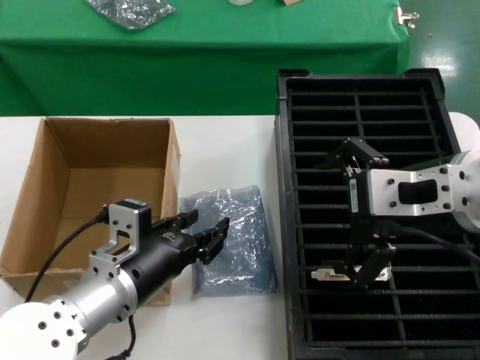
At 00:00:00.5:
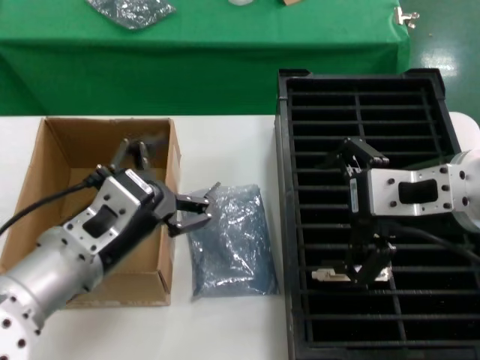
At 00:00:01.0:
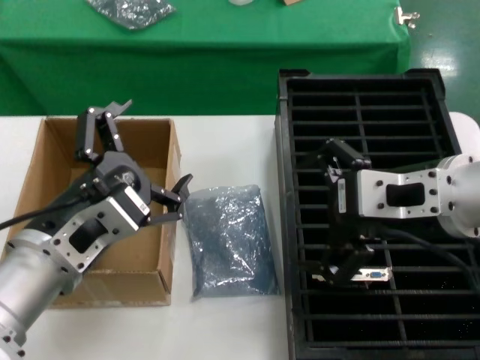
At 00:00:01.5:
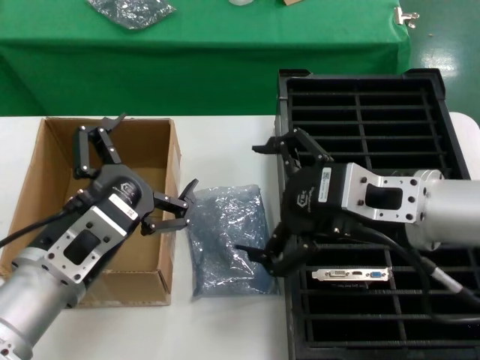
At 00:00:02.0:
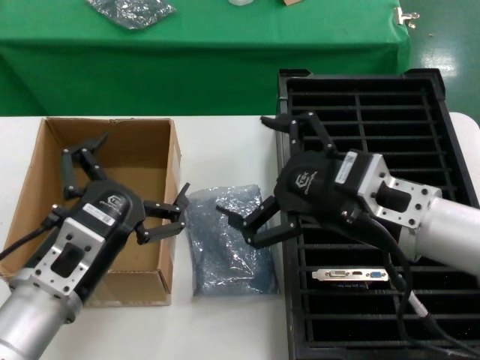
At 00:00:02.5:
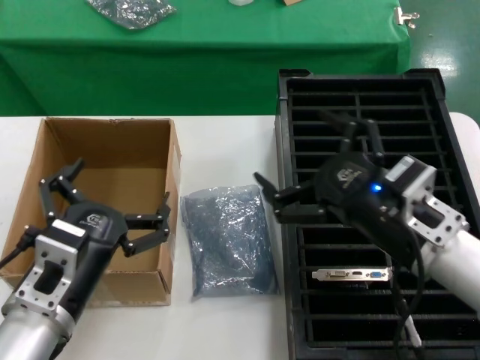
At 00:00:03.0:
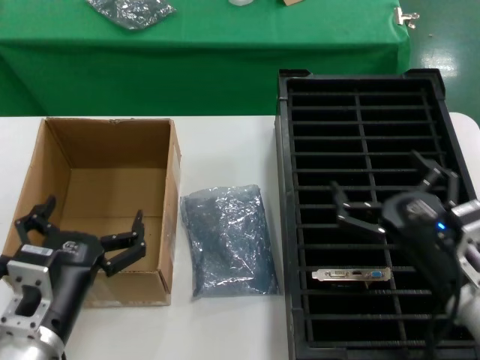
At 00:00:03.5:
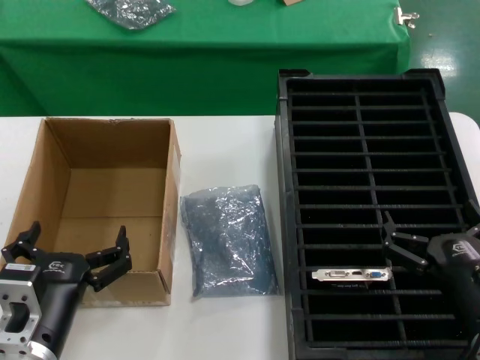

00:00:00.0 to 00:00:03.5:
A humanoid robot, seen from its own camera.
Task of the whole recording: take out graphics card from box remove packaging put into black container.
00:00:00.0 to 00:00:02.0: The left hand goes roughly 5 cm backward, and moves some 10 cm upward and comes back. The right hand heads downward, covering approximately 10 cm.
00:00:02.0 to 00:00:03.5: The right hand heads downward and to the right, covering about 20 cm. The left hand moves downward, about 10 cm.

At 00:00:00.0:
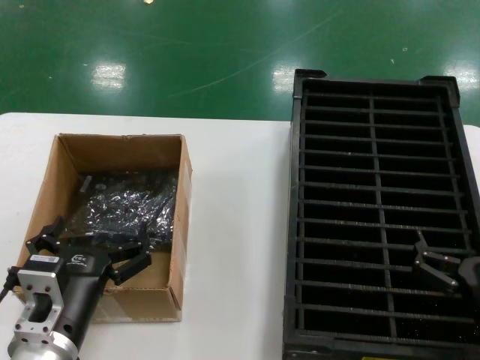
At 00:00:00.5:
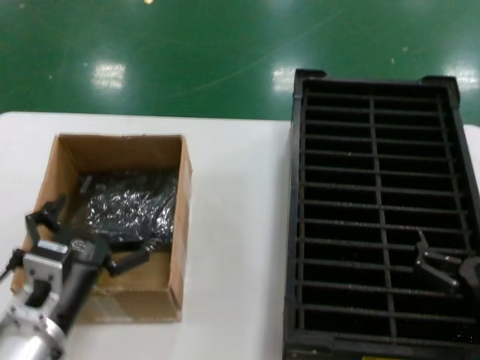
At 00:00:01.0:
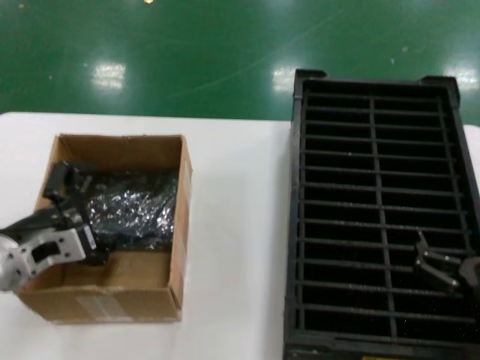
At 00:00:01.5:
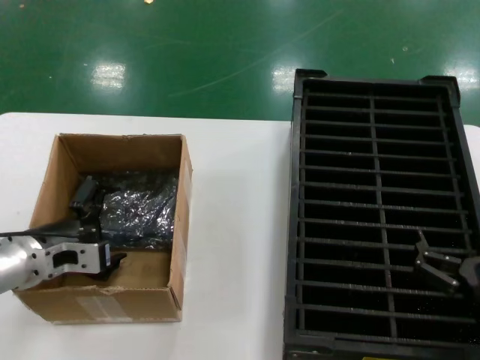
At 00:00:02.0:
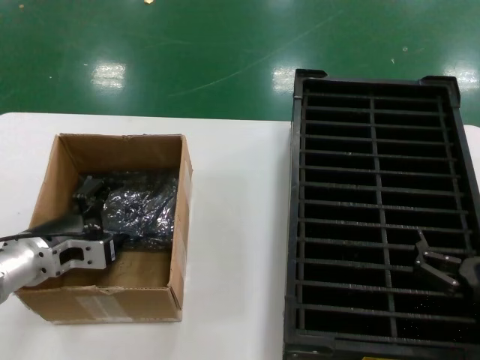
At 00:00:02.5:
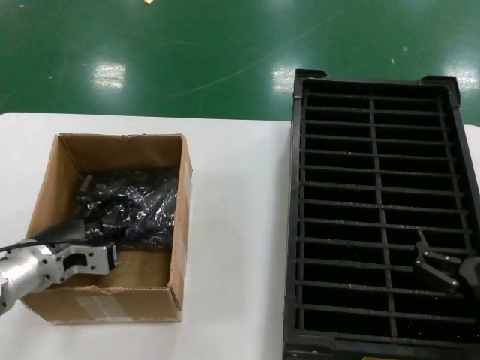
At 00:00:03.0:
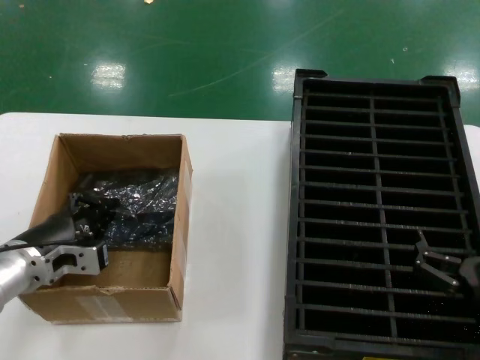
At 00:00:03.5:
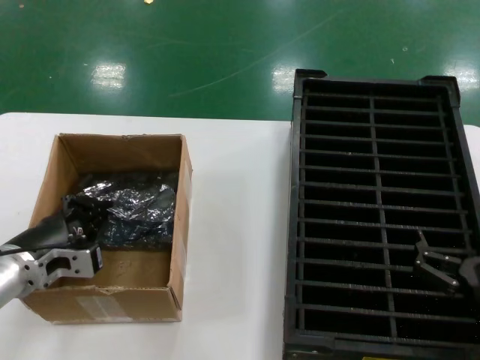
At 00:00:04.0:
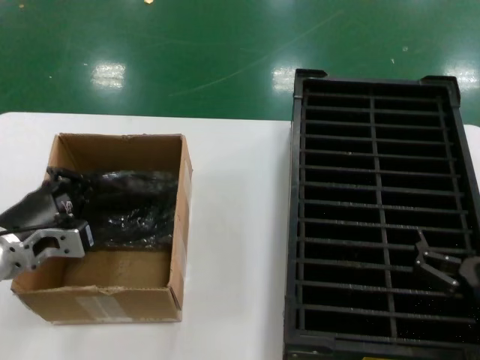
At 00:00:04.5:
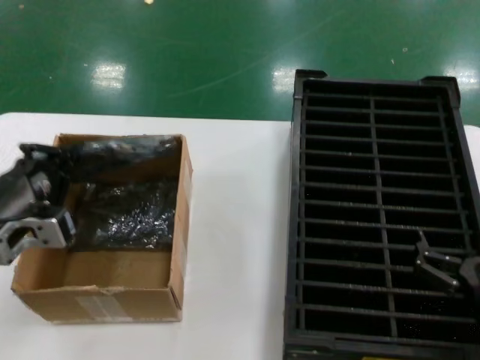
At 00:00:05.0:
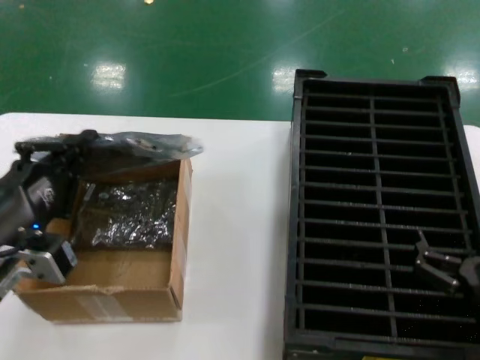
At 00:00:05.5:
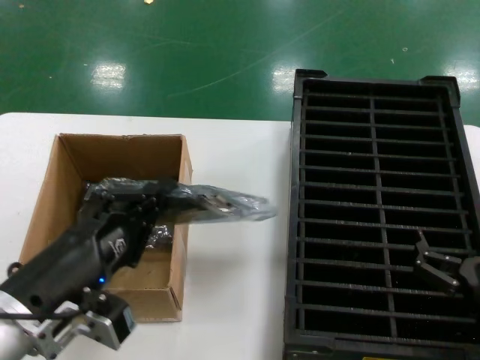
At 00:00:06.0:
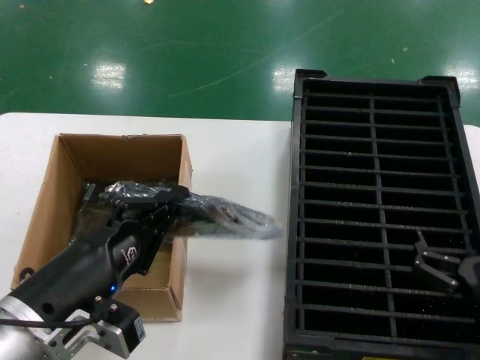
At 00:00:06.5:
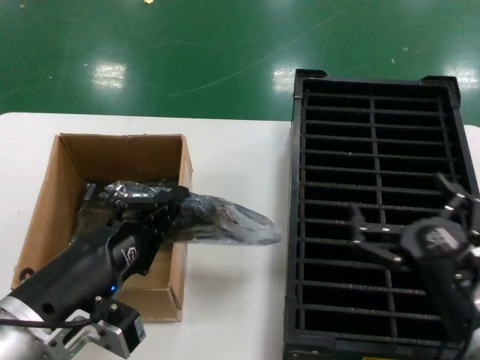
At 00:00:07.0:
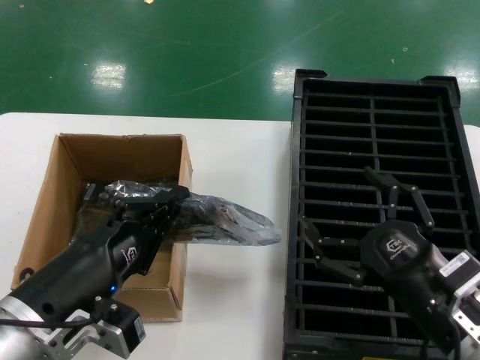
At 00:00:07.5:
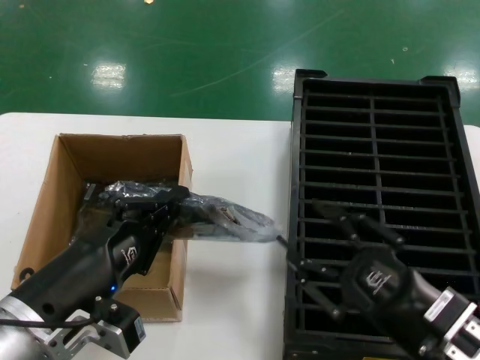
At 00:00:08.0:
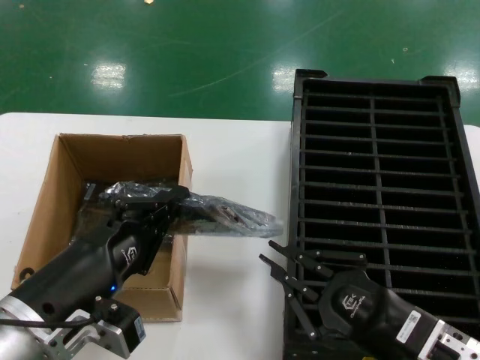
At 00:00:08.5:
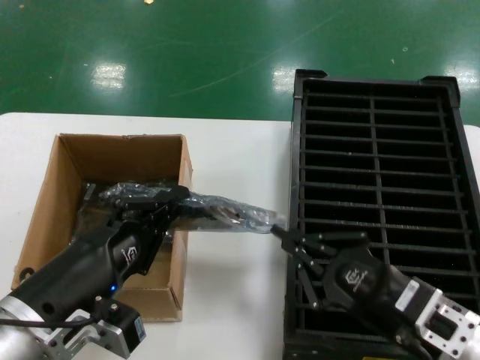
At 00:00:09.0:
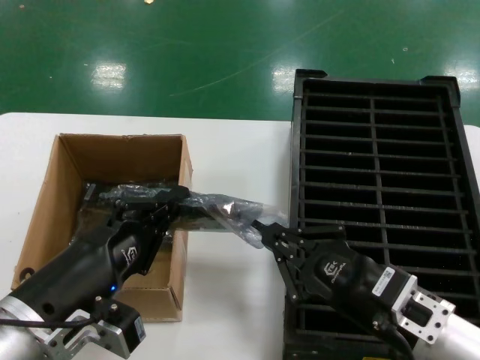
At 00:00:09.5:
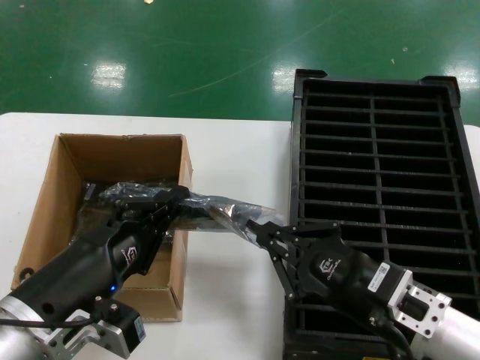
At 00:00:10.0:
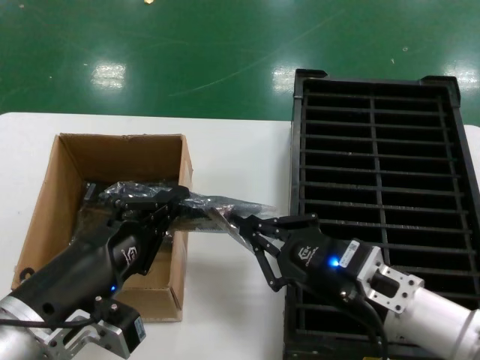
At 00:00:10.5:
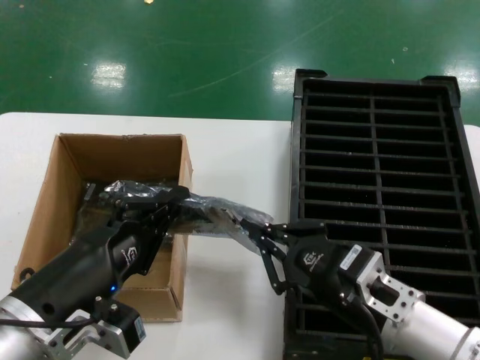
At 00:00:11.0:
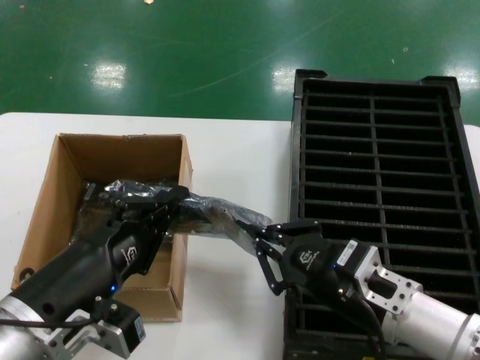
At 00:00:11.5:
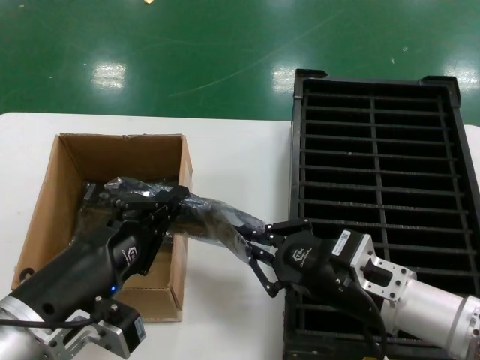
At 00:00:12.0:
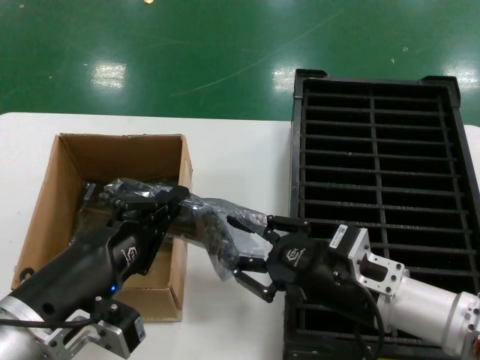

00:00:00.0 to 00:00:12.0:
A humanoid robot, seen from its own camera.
Task of the whole recording: take out graphics card from box remove packaging put into black container.
Step, 00:00:00.0 to 00:00:02.5: Grasp the bag.
Step, 00:00:03.0 to 00:00:06.0: Lift the bag.
00:00:00.0 to 00:00:02.0: The left hand moves forward and to the left, roughly 15 cm.
00:00:02.0 to 00:00:04.0: The hands make only small movements.
00:00:04.0 to 00:00:06.0: The left hand shifts roughly 15 cm backward and to the right.
00:00:06.0 to 00:00:08.0: The right hand shifts approximately 5 cm to the left.
00:00:08.0 to 00:00:10.0: The right hand is displaced forward by roughly 5 cm.
00:00:10.0 to 00:00:12.0: The hands stay close to where they were, moving slightly.

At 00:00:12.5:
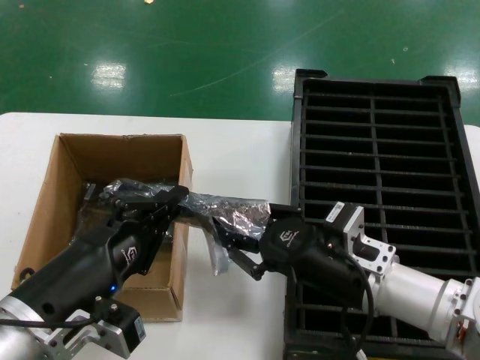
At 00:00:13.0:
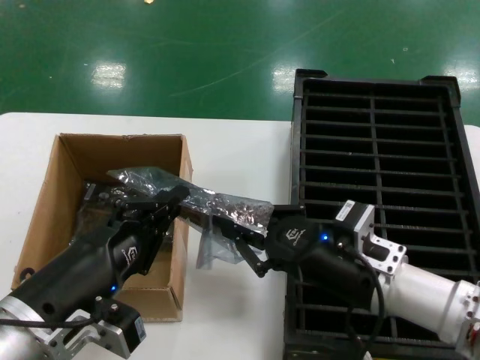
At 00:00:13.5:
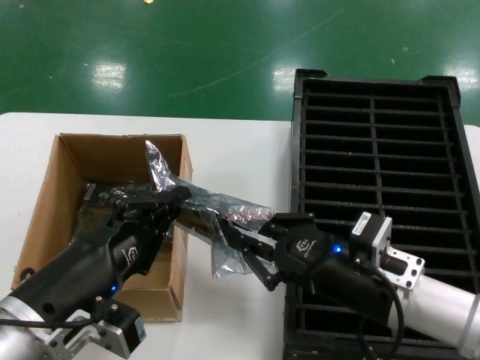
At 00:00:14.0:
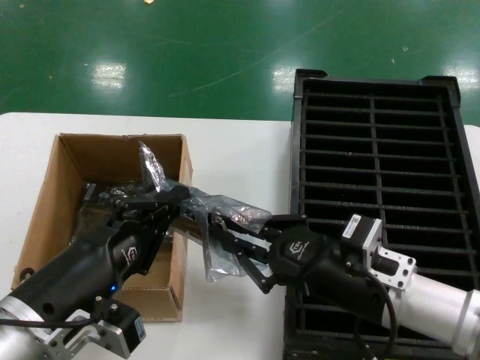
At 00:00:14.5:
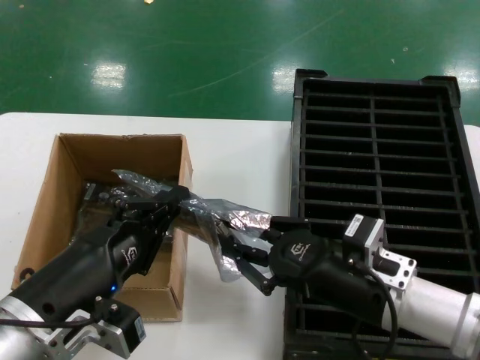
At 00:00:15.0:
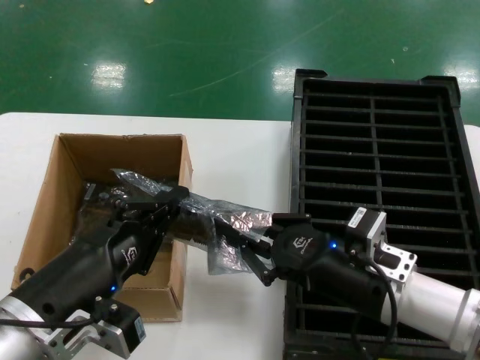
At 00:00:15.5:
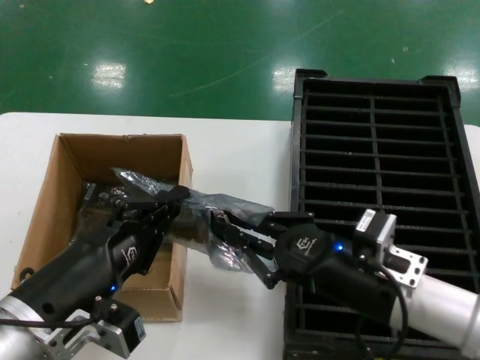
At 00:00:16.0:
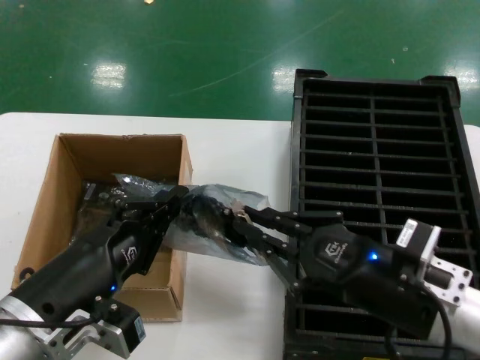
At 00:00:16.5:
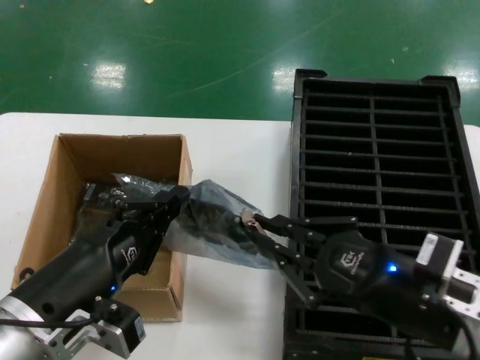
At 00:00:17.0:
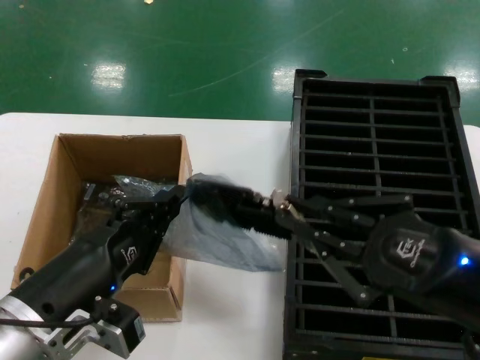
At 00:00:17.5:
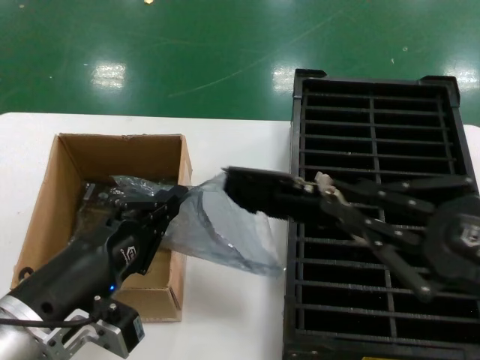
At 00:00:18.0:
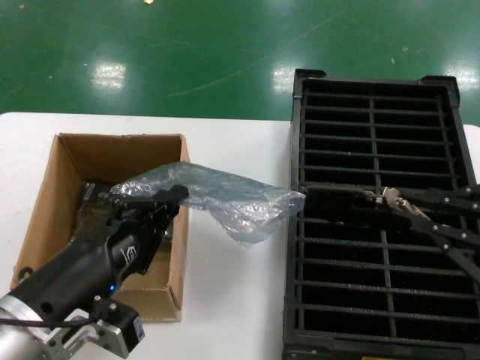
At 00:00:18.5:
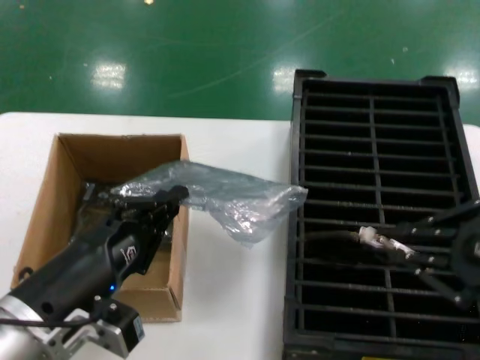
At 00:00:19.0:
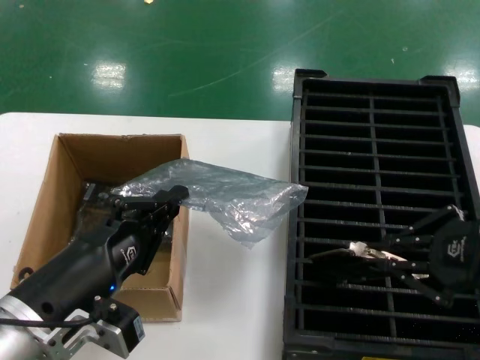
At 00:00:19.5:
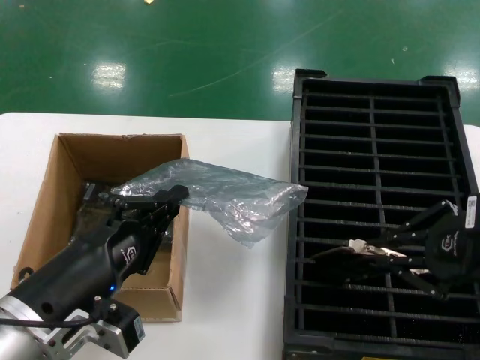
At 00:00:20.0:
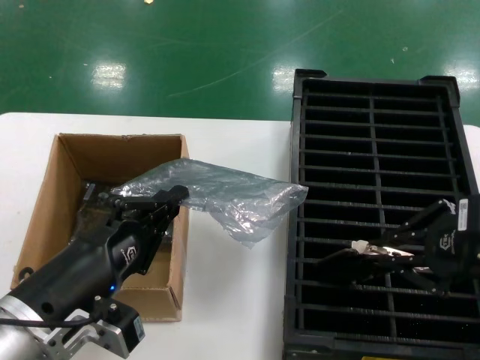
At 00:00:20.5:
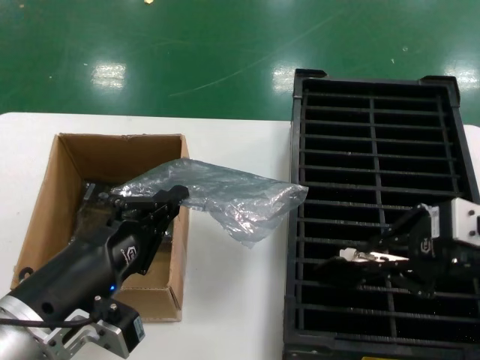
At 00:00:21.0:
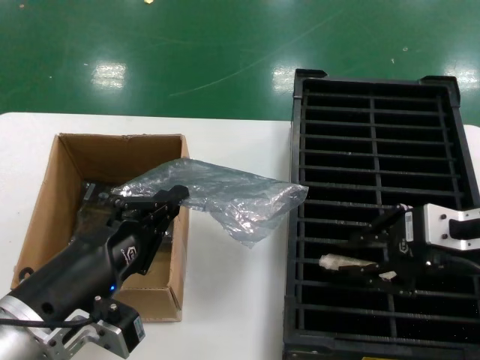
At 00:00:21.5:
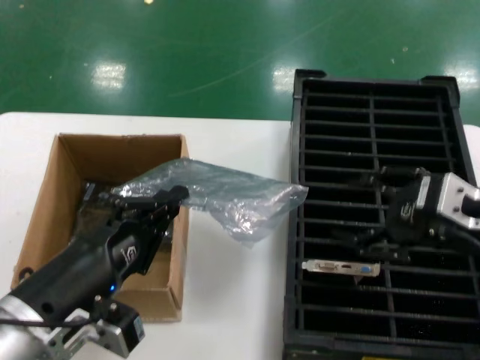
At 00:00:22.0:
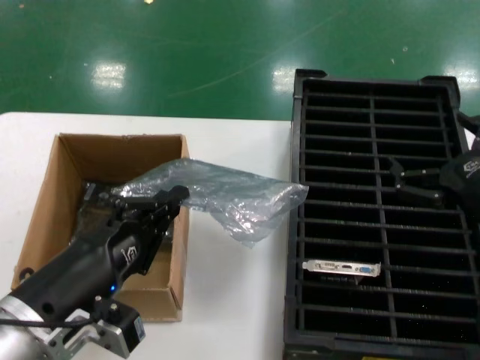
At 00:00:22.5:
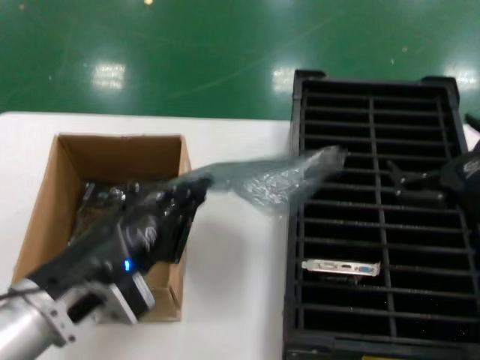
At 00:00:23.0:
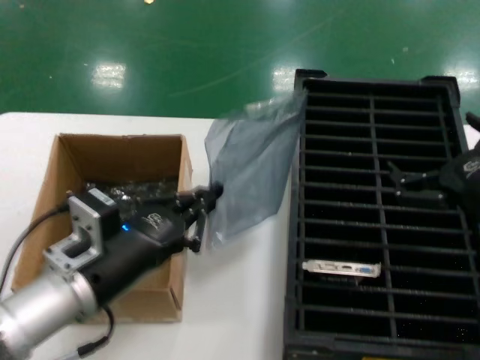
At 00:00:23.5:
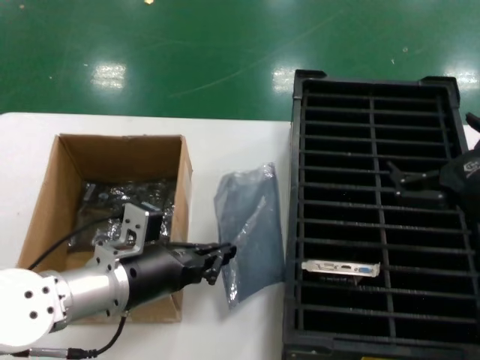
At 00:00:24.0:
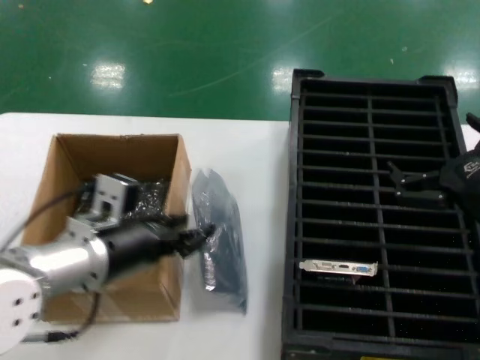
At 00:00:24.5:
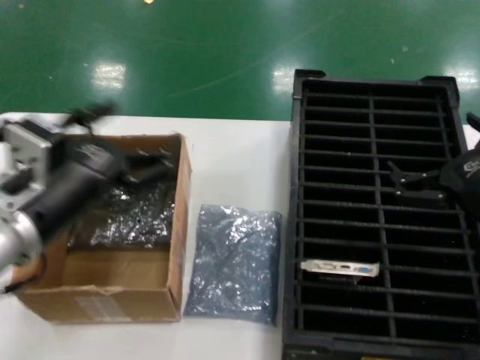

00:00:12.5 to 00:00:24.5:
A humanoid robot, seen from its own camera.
Task of the whole recording: take out graphics card from box remove packaging put into black container.
Step, 00:00:12.5 to 00:00:18.0: Take out the hard disk of the bag.
Step, 00:00:18.5 to 00:00:22.0: Place the hard disk in the hard disk enclosure.
00:00:12.5 to 00:00:14.5: The hands stay close to where they were, moving slightly.
00:00:14.5 to 00:00:16.5: The right hand shifts about 5 cm backward.
00:00:16.5 to 00:00:18.5: The right hand shifts approximately 15 cm upward and to the right.
00:00:18.5 to 00:00:20.5: The right hand goes about 10 cm forward and to the left.
00:00:20.5 to 00:00:22.5: The right hand heads downward, covering about 5 cm.
00:00:22.5 to 00:00:24.5: The left hand is displaced upward by approximately 5 cm, and goes forward and returns, about 10 cm each way.
